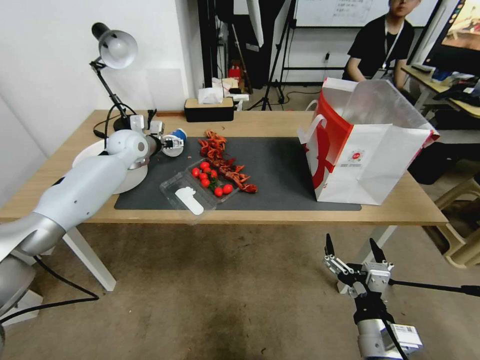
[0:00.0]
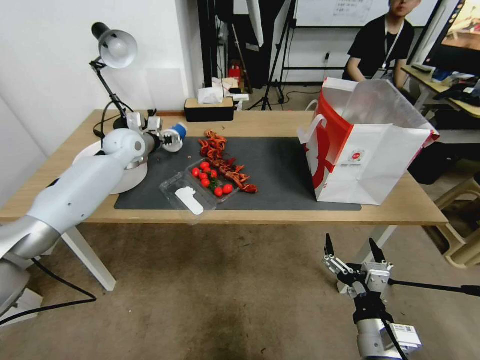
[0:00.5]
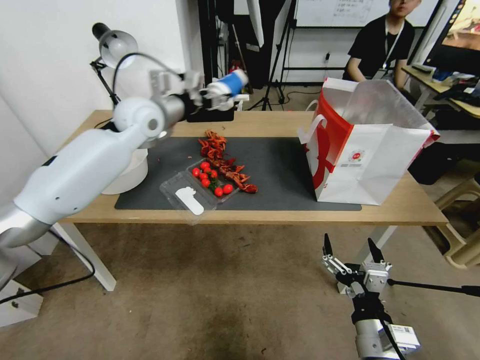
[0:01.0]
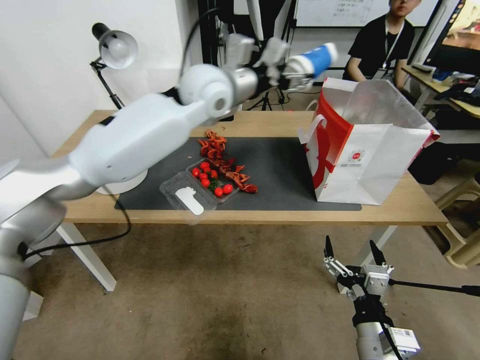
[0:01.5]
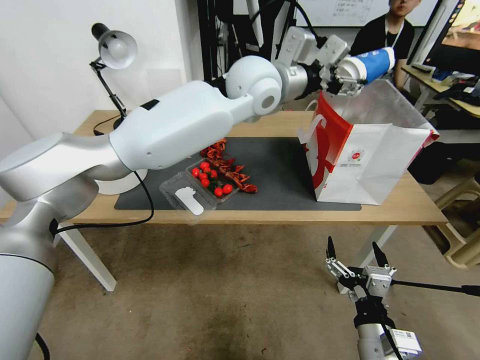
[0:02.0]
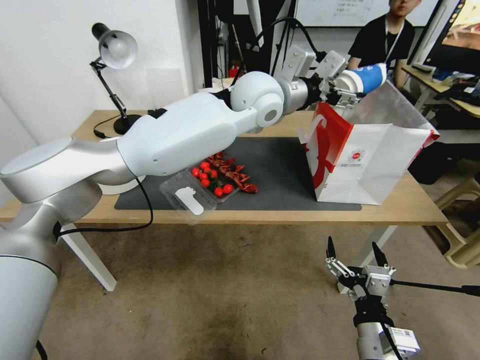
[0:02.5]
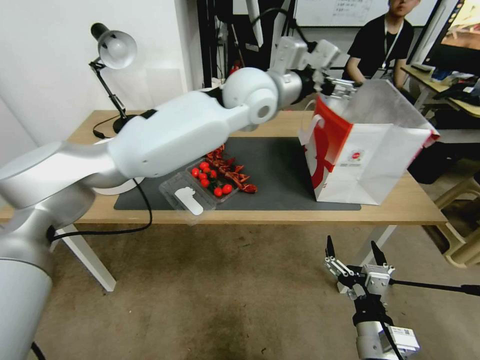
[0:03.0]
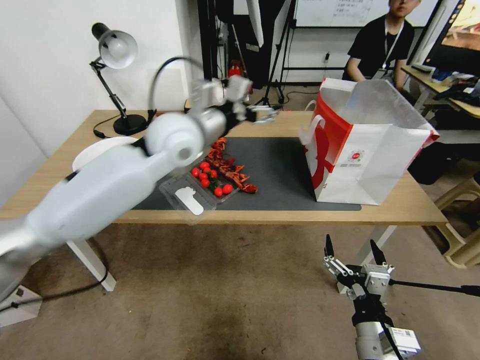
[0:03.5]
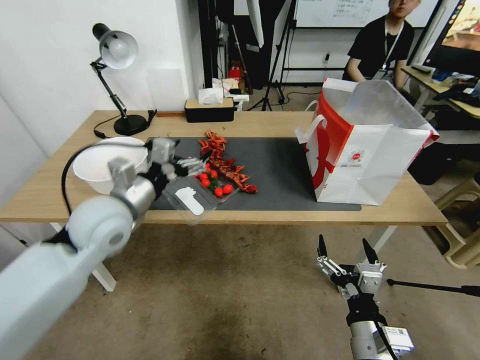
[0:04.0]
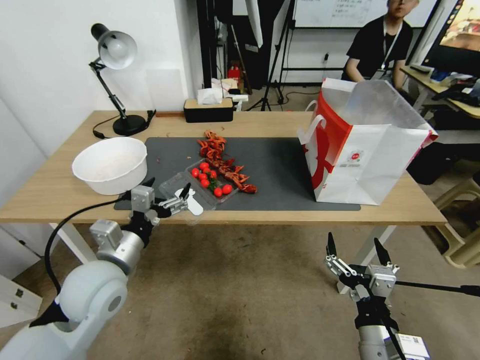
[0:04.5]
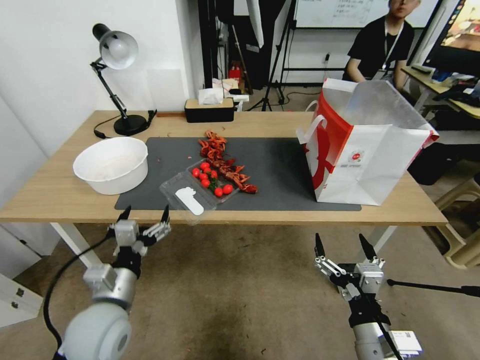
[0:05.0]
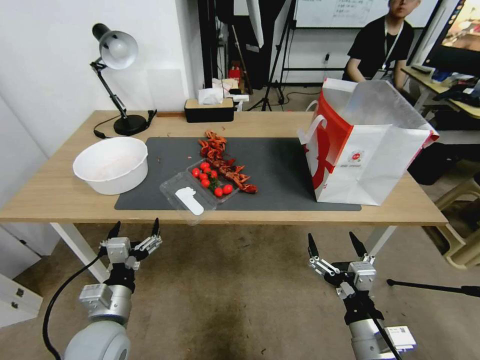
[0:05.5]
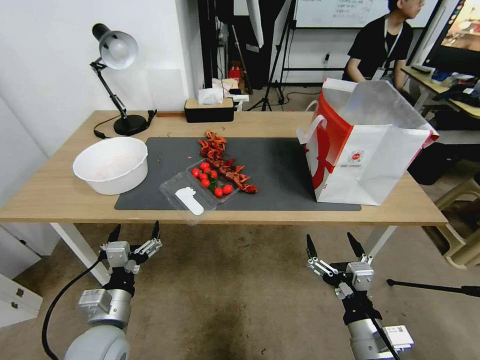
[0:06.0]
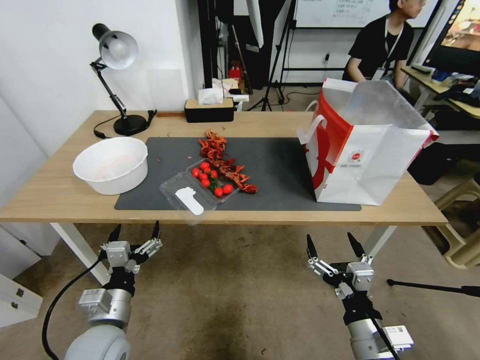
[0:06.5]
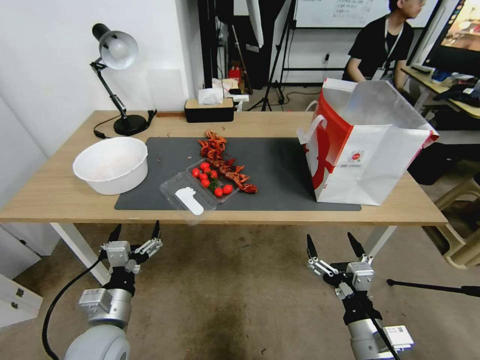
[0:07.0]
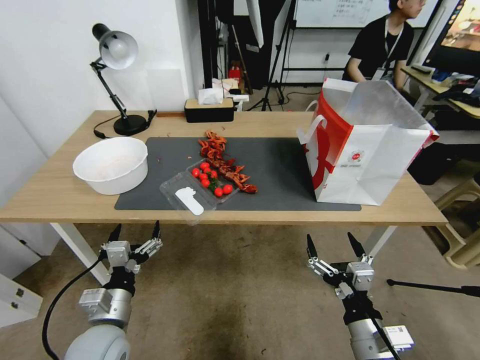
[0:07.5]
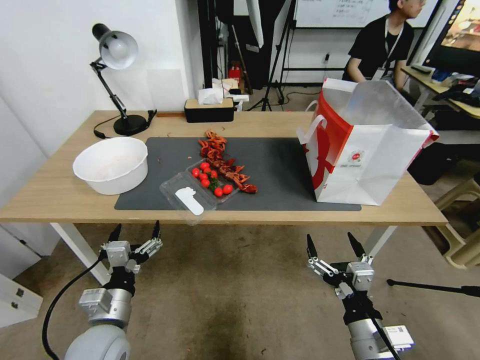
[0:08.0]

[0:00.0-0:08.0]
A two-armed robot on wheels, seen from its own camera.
0:00.0 to 0:02.0: The left gripper shifts about 40 cm to the right and upward, and closes.
0:02.0 to 0:04.0: The left gripper goes some 35 cm to the left, downward and backward, and opens its fingers.
0:04.0 to 0:06.0: The left gripper goes some 25 cm downward and backward.
0:06.0 to 0:08.0: Neither gripper changes place.
